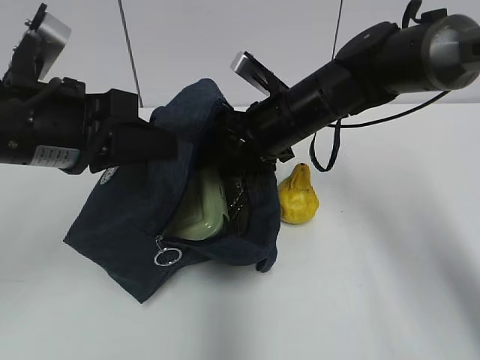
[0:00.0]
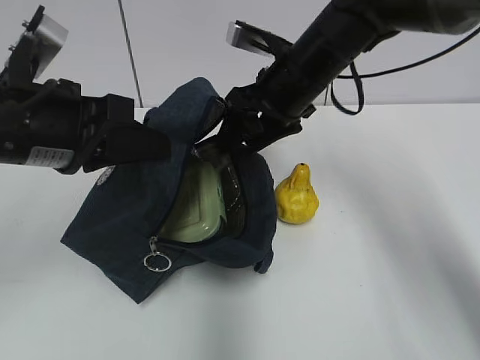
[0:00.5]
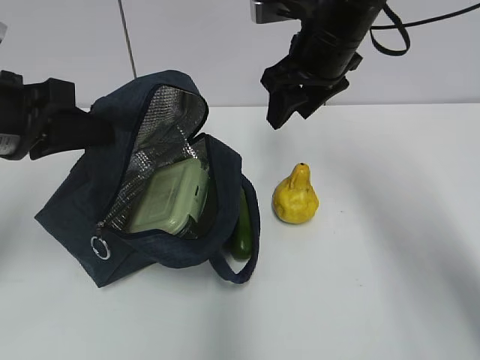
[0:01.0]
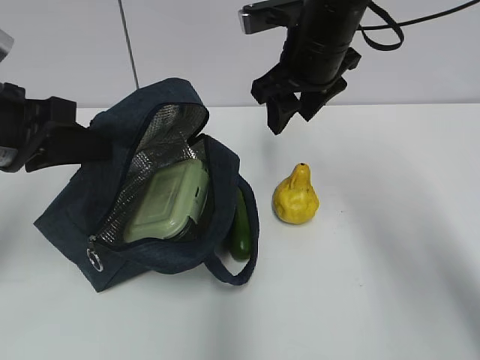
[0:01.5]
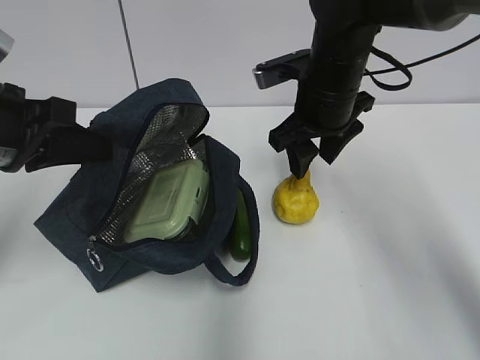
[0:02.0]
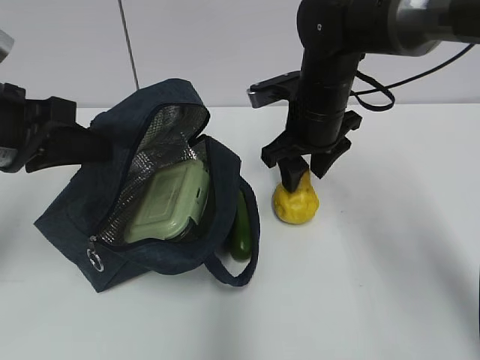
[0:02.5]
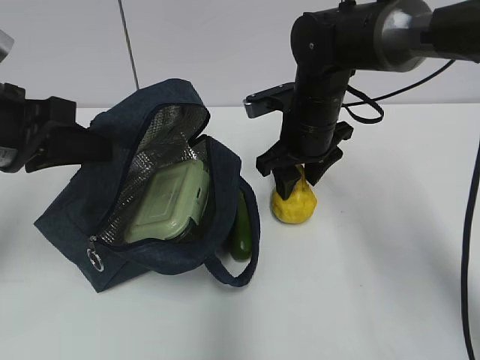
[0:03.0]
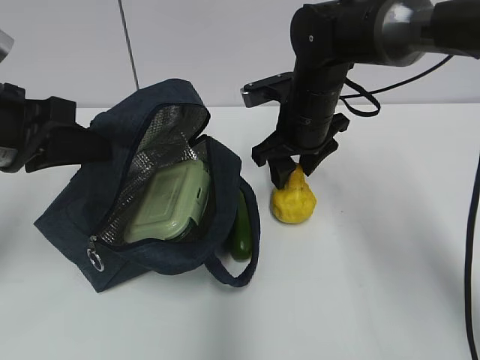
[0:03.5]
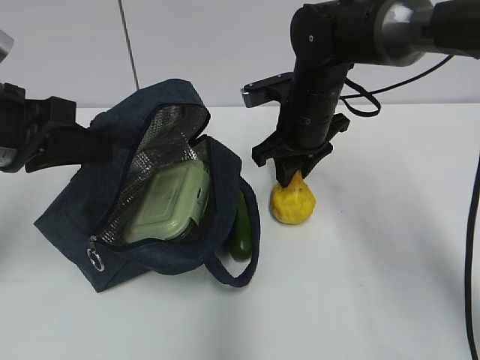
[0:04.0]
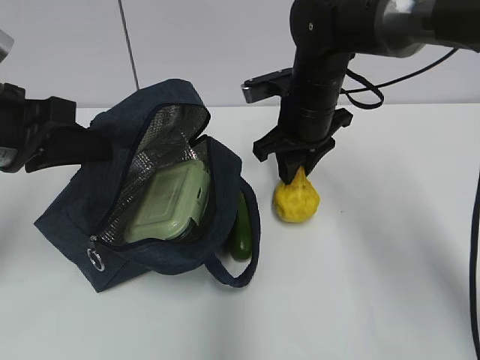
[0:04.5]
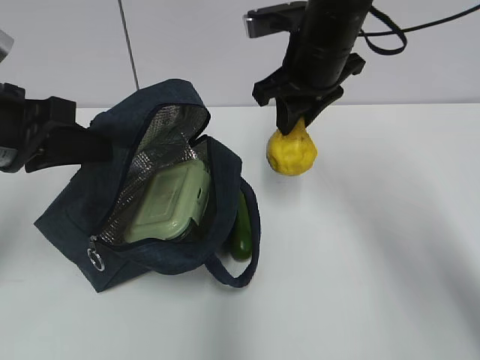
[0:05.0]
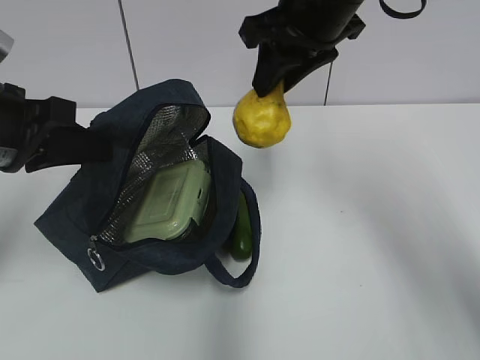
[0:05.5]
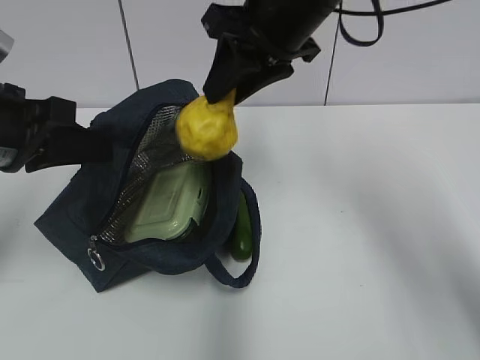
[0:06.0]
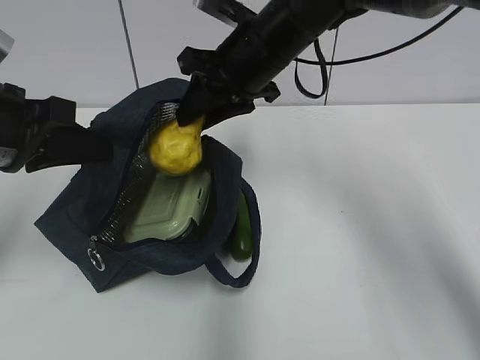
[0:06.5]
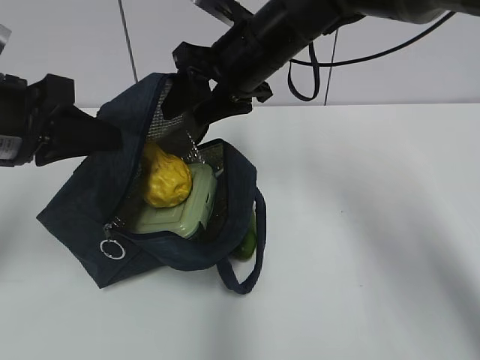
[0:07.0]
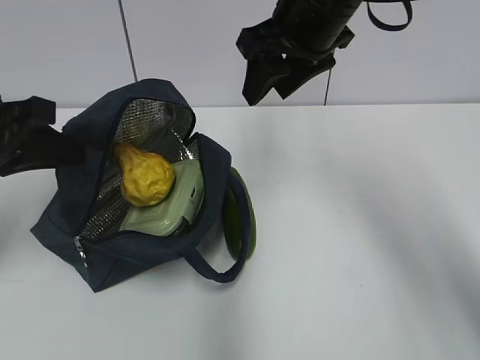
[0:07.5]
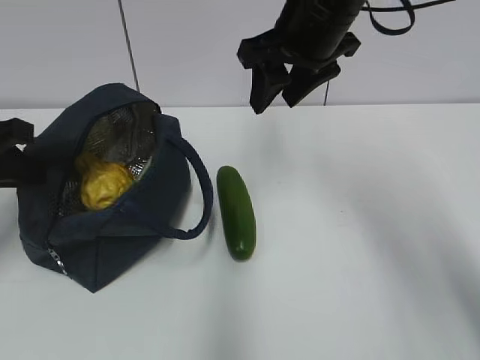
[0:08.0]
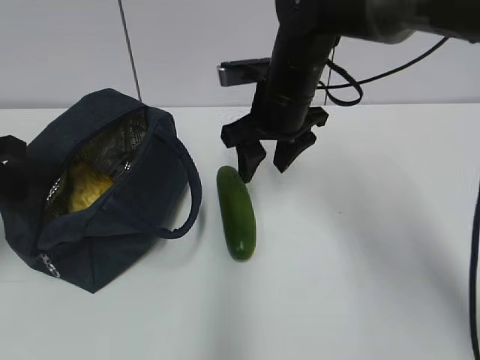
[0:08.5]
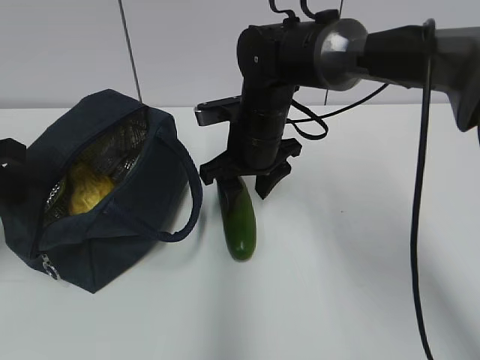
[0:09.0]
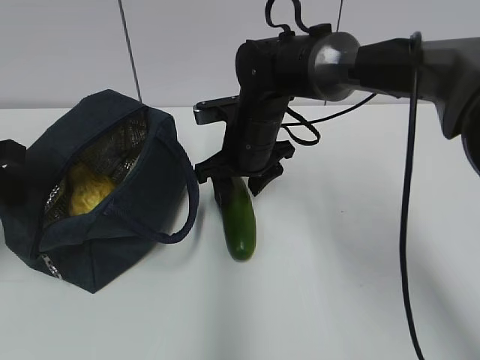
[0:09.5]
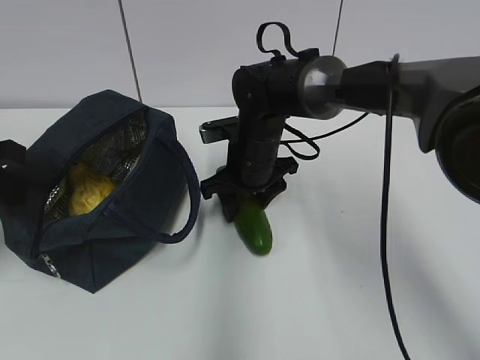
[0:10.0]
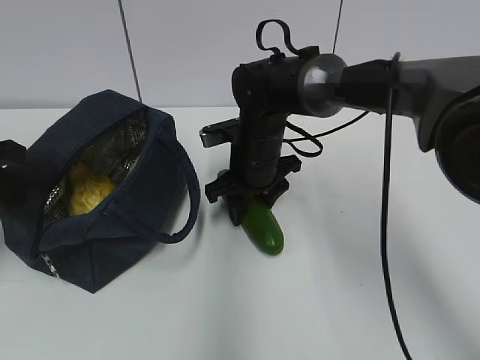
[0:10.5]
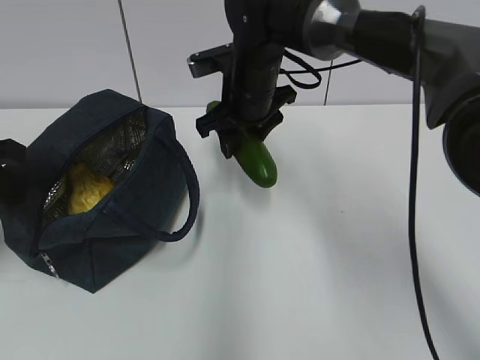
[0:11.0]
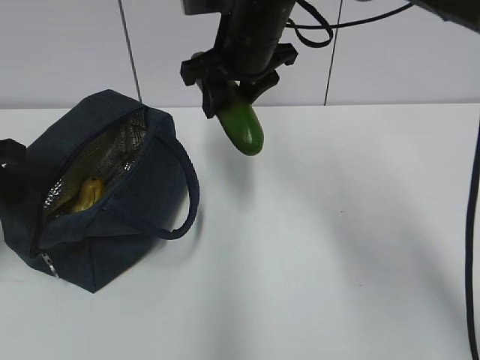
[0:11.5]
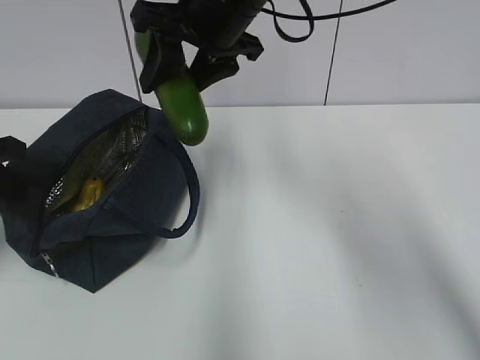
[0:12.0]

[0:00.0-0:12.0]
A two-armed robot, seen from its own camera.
Step, 0:00.5 to 0:04.0: Grab the pear with your right hand.
Step, 0:04.5 to 0:07.0: Place it into the bag with your right hand.
Step, 0:07.5 to 0:10.0: Grab the cucumber with your right hand.
0:00.0 to 0:02.0: The left gripper is displaced to the left by approximately 5 cm.
0:02.0 to 0:04.0: The right gripper ends up approximately 5 cm from where it was.
0:04.0 to 0:06.0: The right gripper heads upward, covering approximately 15 cm.
0:06.0 to 0:08.0: The left gripper goes about 5 cm to the left.
0:08.0 to 0:10.0: The right gripper moves downward, about 20 cm.
0:10.0 to 0:12.0: The right gripper travels upward by some 20 cm.

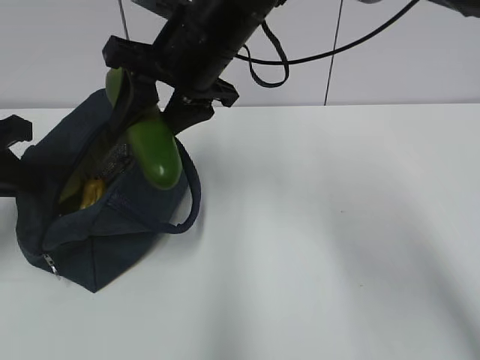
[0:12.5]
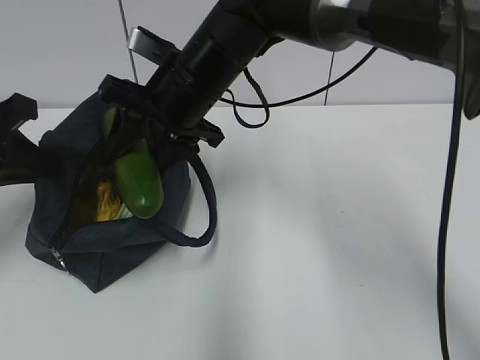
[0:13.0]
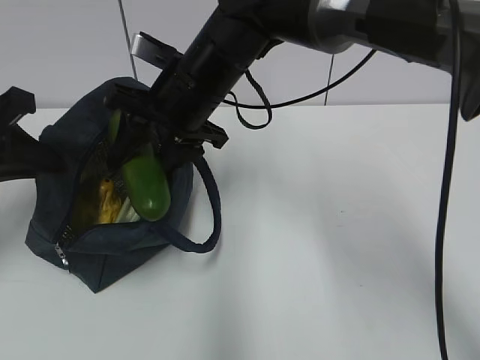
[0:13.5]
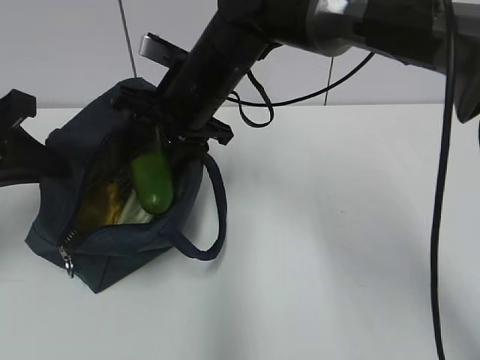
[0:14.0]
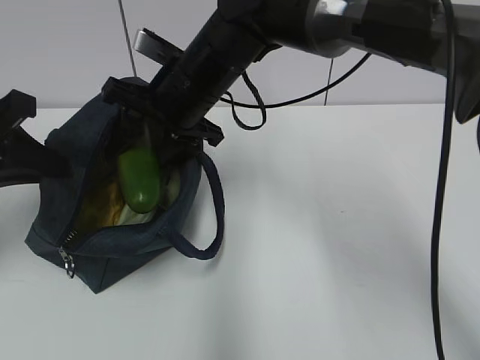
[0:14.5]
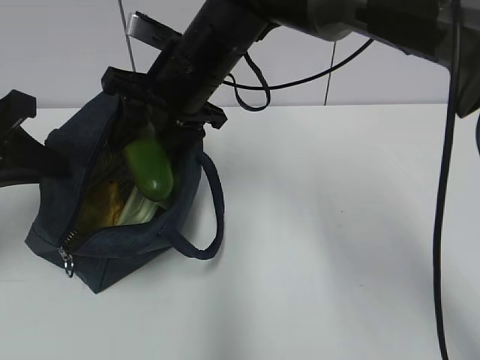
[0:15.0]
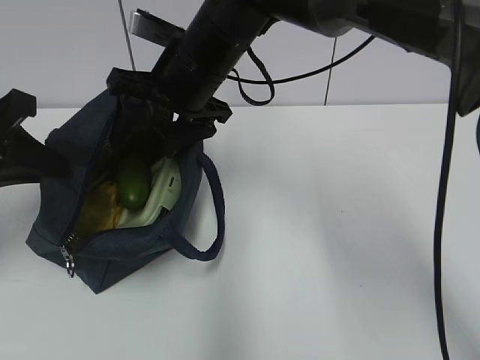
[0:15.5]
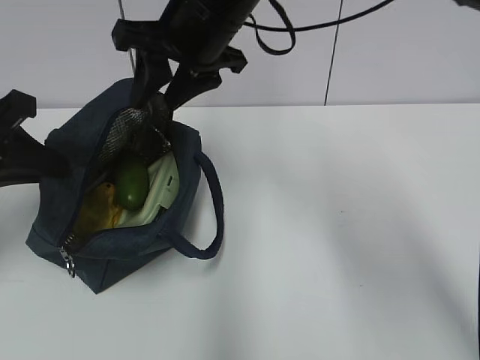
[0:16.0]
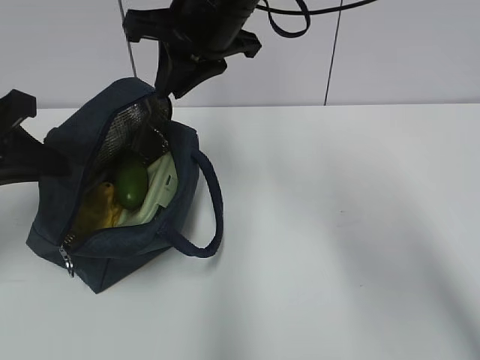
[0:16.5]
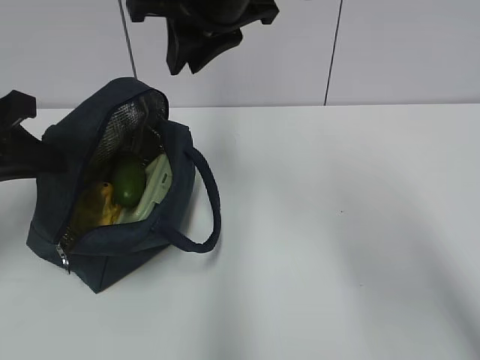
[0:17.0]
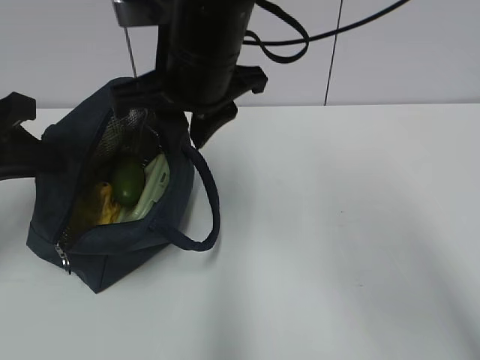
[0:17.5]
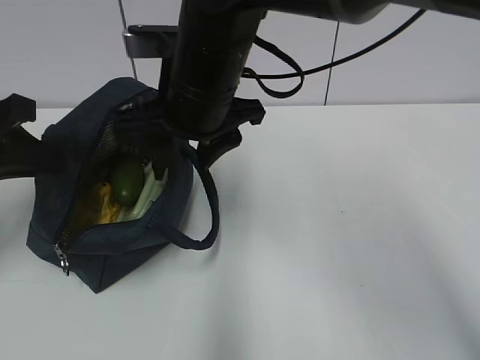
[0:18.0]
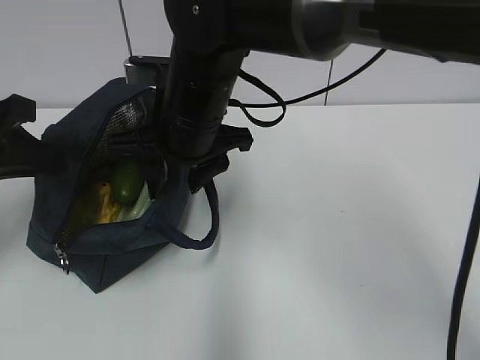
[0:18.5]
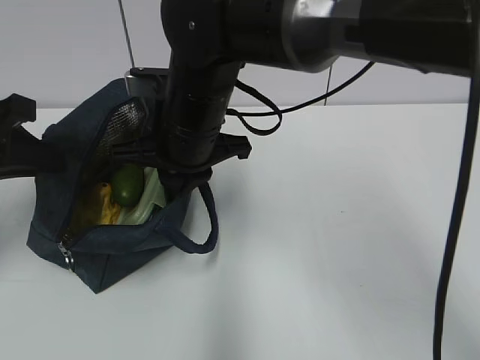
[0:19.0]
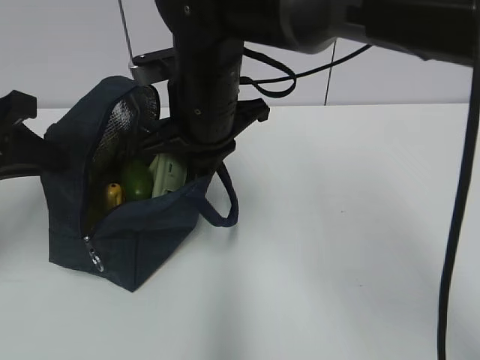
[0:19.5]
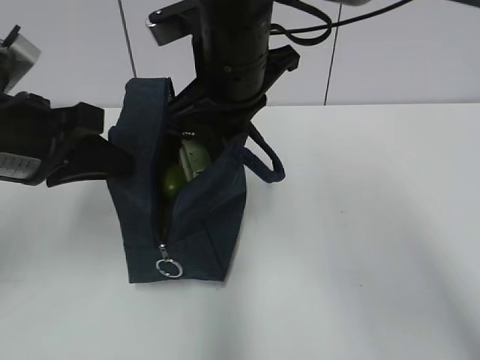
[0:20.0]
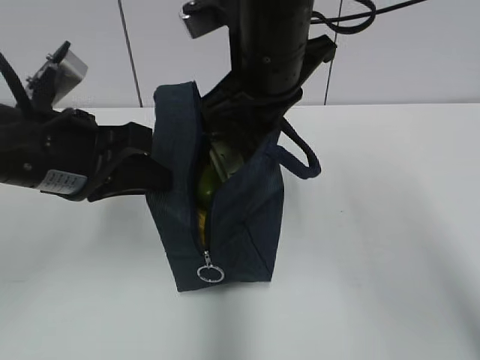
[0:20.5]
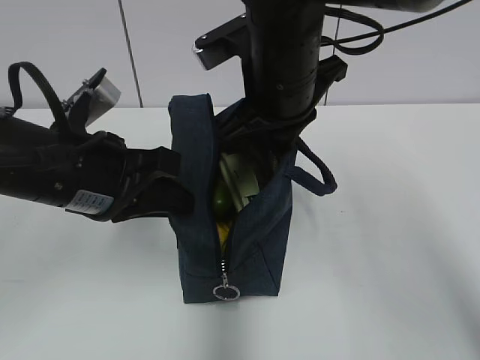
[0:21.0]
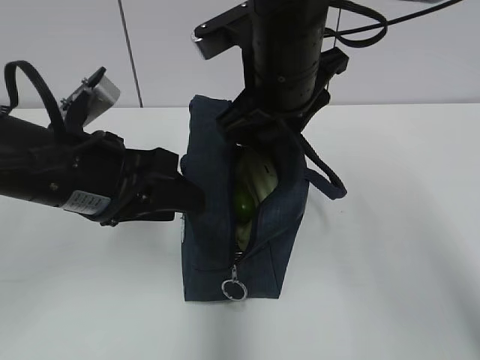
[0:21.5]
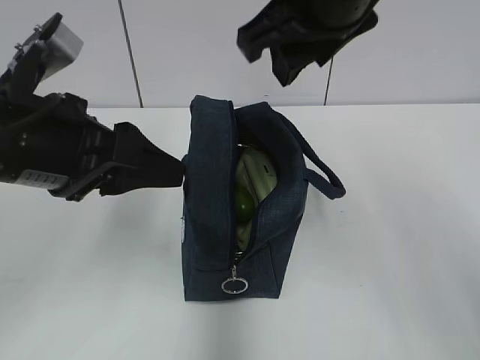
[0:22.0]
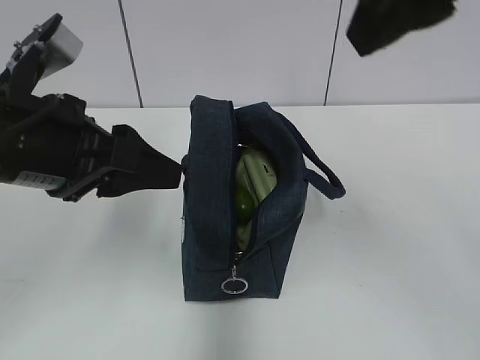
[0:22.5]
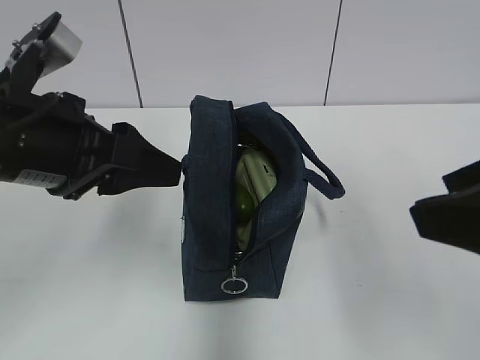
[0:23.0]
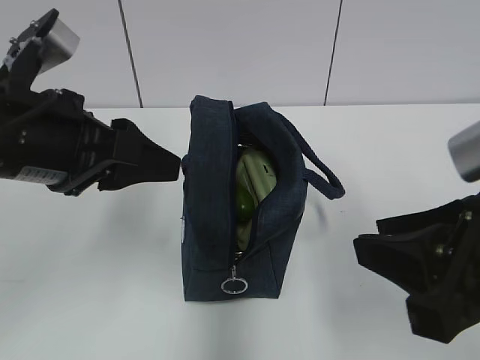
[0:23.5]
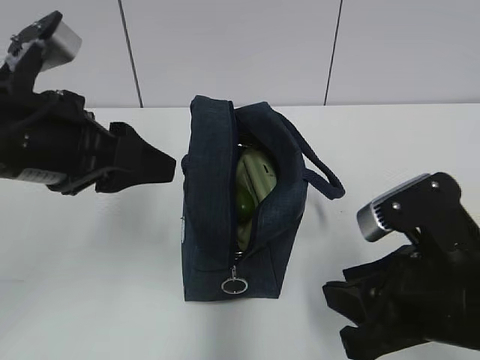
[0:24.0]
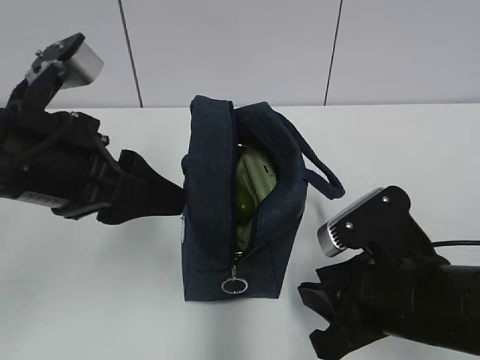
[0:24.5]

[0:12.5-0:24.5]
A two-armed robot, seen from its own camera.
Step, 0:12.5 to 0:15.5: Secure the lunch bag with your left hand.
Step, 0:16.0 to 0:19.0: Grab the lunch bag with your right hand.
Step, 0:19.5 to 0:21.5: Move the lunch bag to the right.
0:12.5 to 0:14.5: The right gripper shifts some 5 cm downward.
0:14.5 to 0:16.5: The right gripper travels upward by about 10 cm, and closes its fingers.
0:16.5 to 0:18.5: The right gripper is displaced downward by roughly 10 cm, and opens its fingers.
0:18.5 to 0:20.5: The right gripper moves to the right and upward, about 10 cm, and closes, while the left gripper goes some 10 cm to the right.
0:20.5 to 0:22.5: The right gripper is displaced backward, upward and to the right by about 20 cm, and opens up. The left gripper opens.
0:22.5 to 0:24.5: The right gripper is displaced downward by about 25 cm.

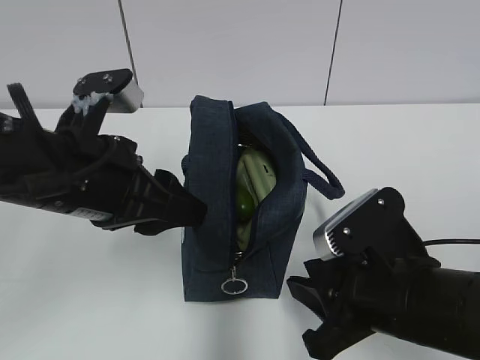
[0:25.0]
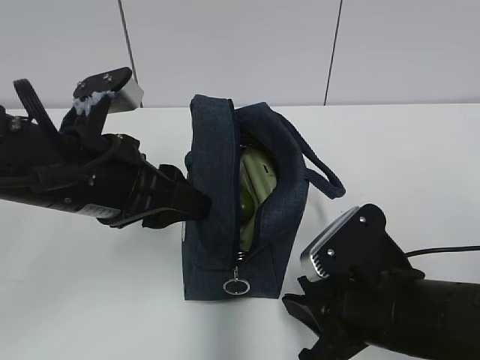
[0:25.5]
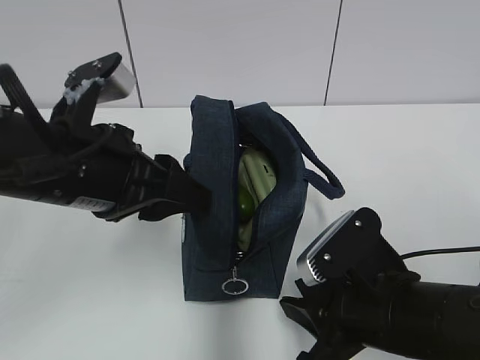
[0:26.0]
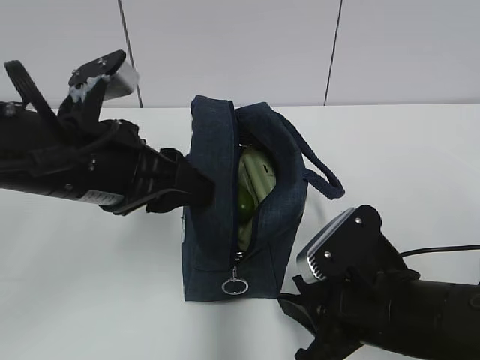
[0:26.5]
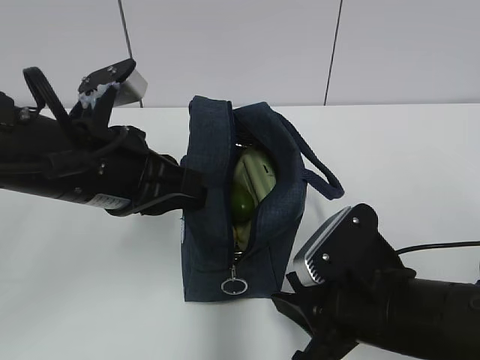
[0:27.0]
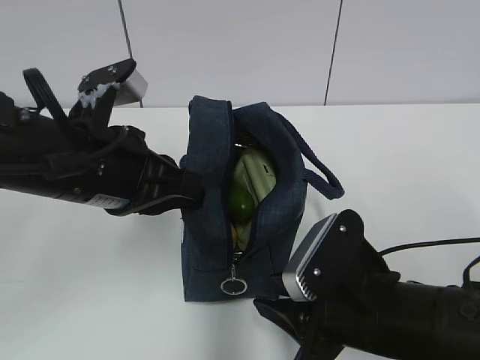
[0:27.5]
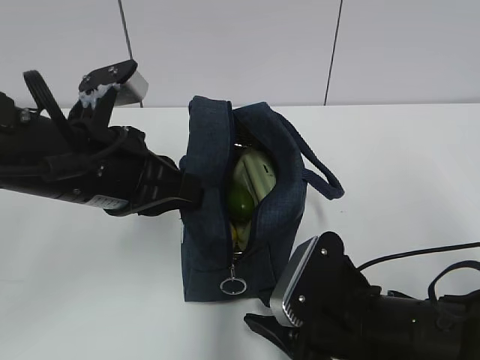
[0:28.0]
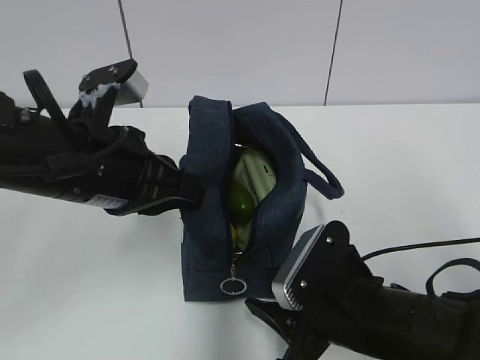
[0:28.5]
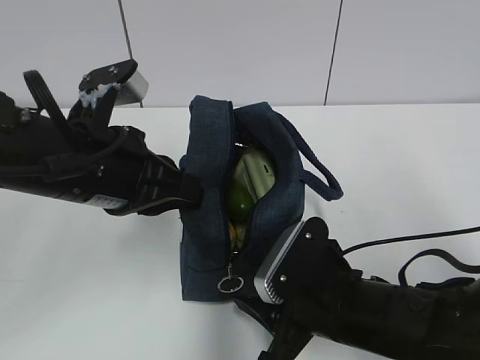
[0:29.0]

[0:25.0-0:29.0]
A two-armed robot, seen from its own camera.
0:25.0 to 0:27.0: The left gripper closes up.
0:27.0 to 0:29.0: The grippers stay close to where they were, moving slightly.
